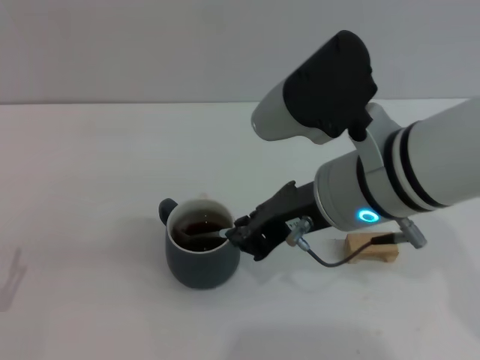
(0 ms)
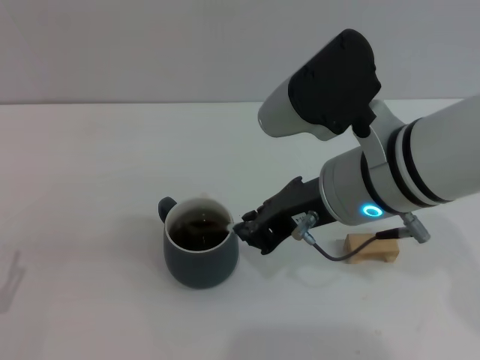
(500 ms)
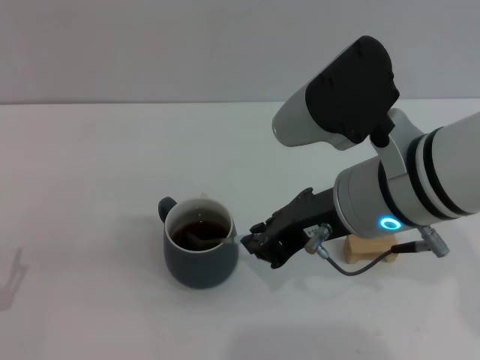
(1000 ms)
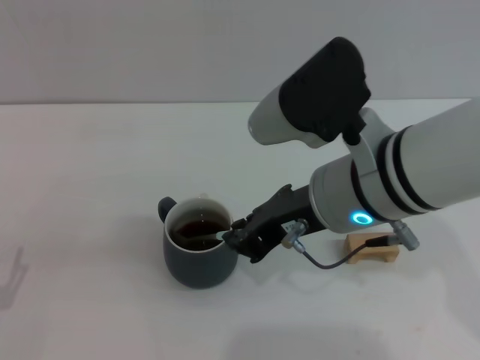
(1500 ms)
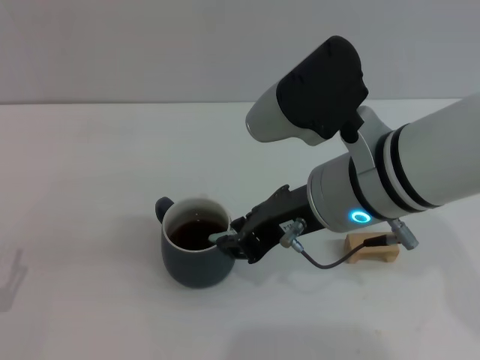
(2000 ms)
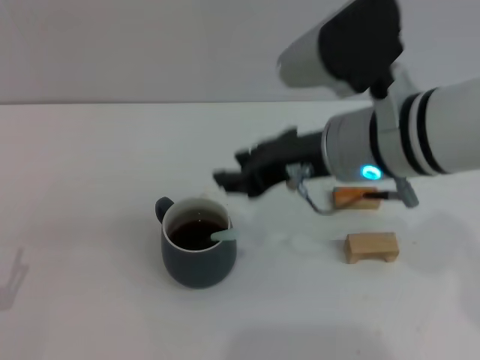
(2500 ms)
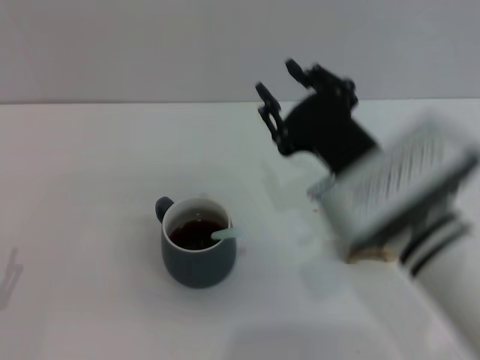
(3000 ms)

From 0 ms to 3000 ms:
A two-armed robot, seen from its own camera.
Task of the whole recording: Move the grey cup to the center, lift the blue spoon, stir it three times in the cup, and put the spoon into the cup.
Step, from 0 ms to 2000 ms: Stir the coffee in the cup with the right gripper.
From 0 ms to 1500 ms: The grippers move only a little.
From 1500 ms to 3000 ms: The right gripper shifts some 5 cm downward.
